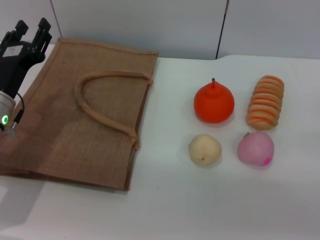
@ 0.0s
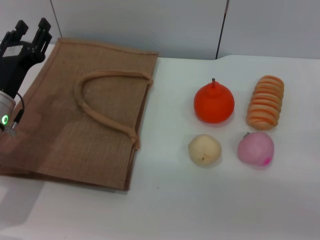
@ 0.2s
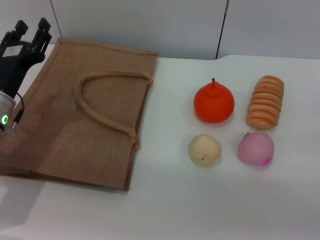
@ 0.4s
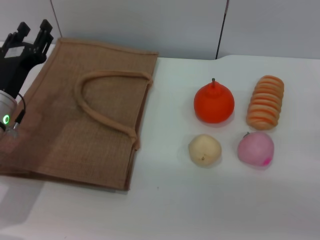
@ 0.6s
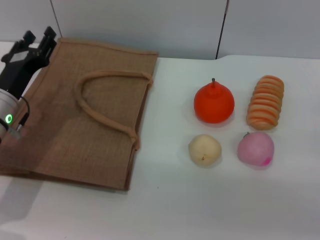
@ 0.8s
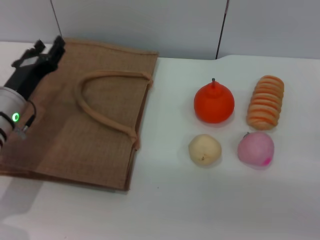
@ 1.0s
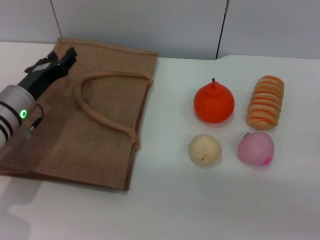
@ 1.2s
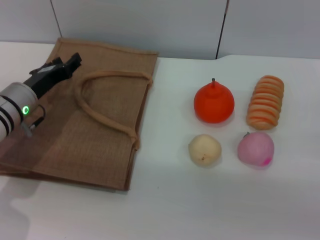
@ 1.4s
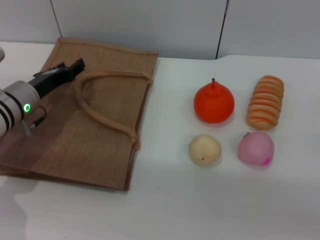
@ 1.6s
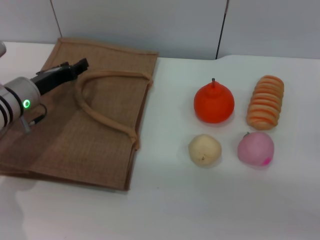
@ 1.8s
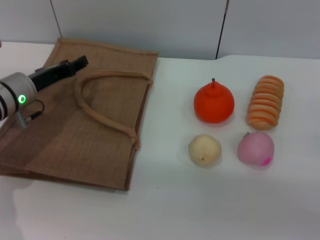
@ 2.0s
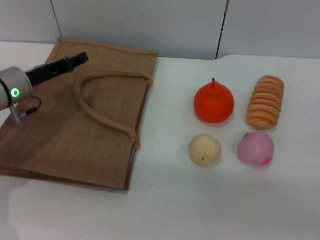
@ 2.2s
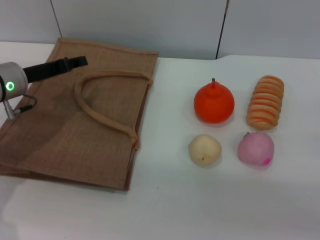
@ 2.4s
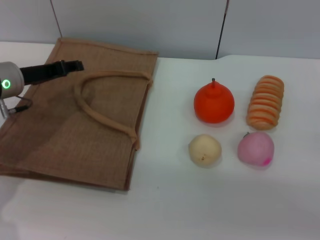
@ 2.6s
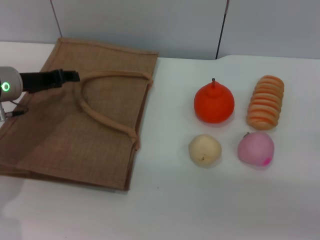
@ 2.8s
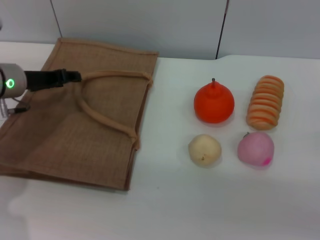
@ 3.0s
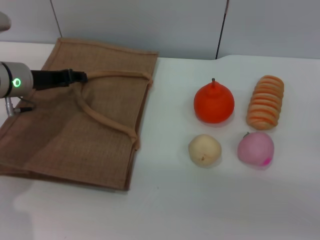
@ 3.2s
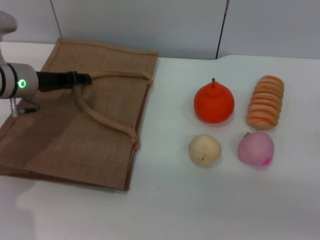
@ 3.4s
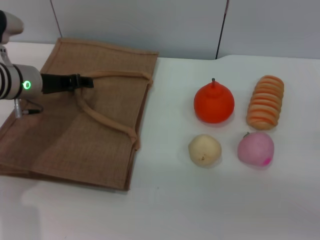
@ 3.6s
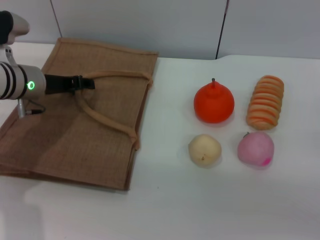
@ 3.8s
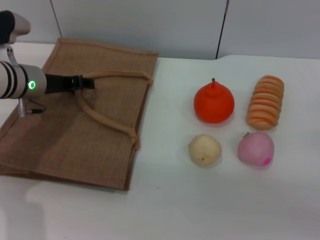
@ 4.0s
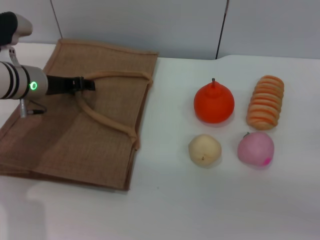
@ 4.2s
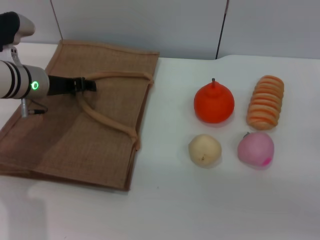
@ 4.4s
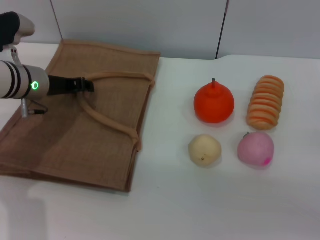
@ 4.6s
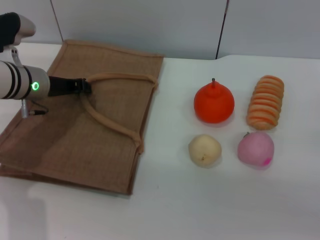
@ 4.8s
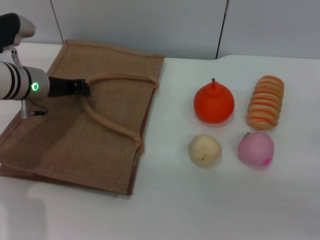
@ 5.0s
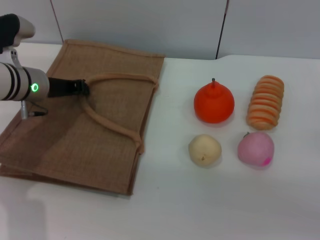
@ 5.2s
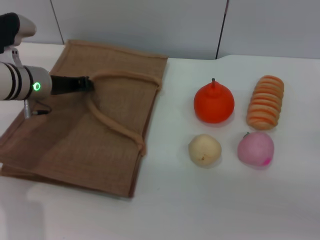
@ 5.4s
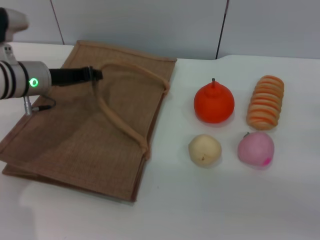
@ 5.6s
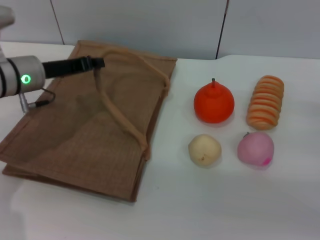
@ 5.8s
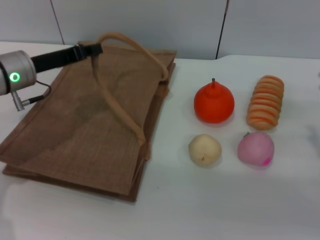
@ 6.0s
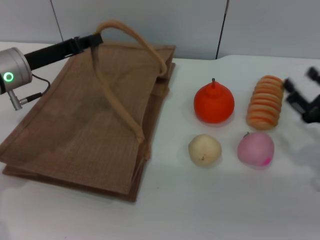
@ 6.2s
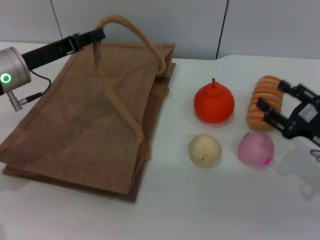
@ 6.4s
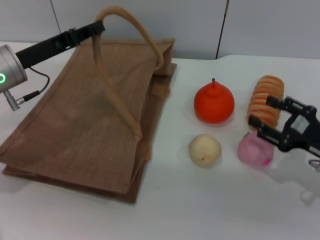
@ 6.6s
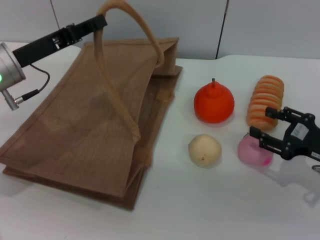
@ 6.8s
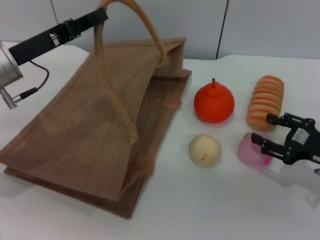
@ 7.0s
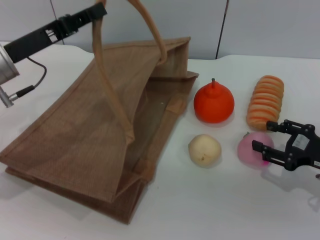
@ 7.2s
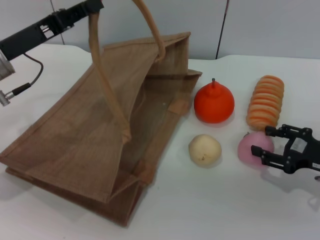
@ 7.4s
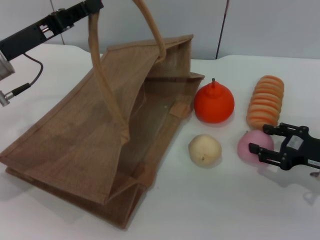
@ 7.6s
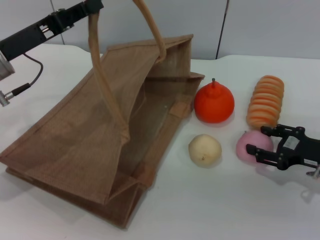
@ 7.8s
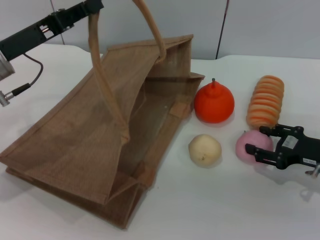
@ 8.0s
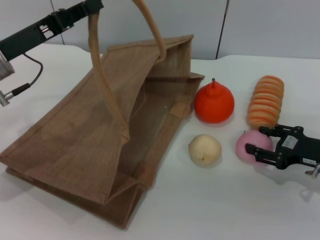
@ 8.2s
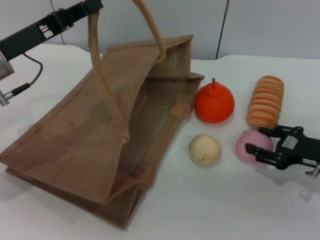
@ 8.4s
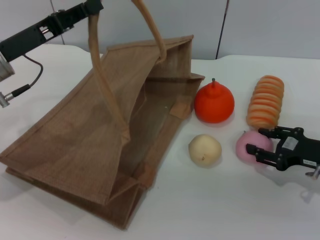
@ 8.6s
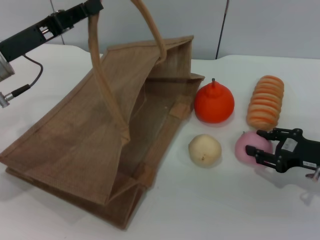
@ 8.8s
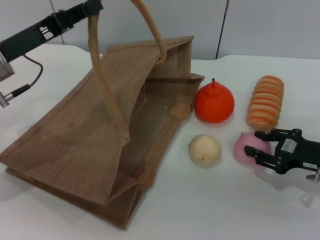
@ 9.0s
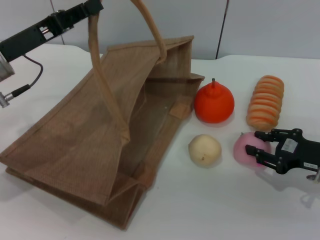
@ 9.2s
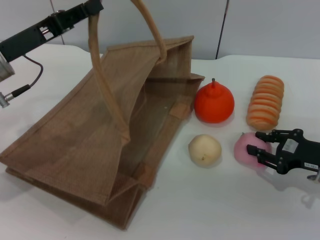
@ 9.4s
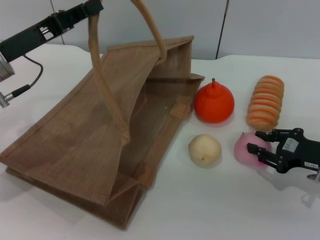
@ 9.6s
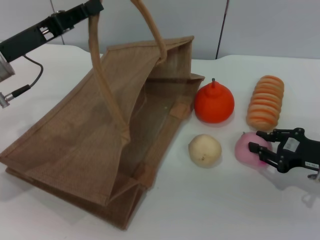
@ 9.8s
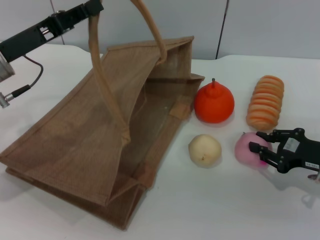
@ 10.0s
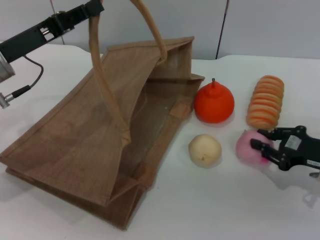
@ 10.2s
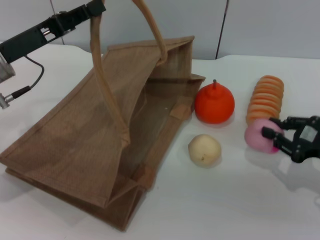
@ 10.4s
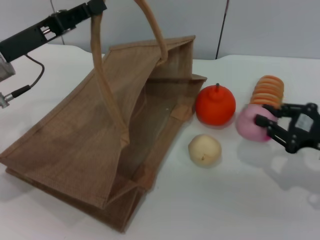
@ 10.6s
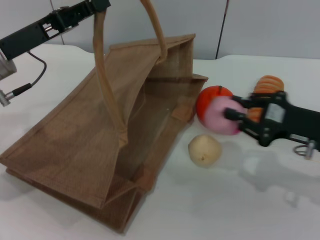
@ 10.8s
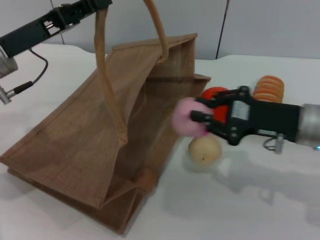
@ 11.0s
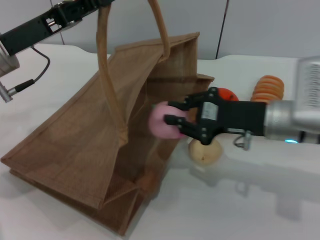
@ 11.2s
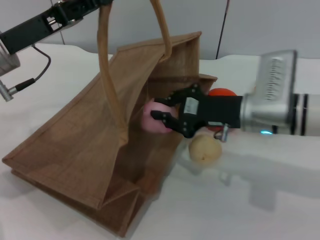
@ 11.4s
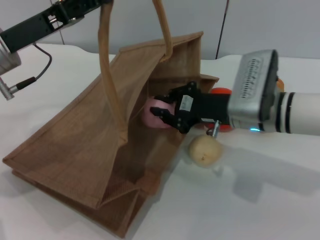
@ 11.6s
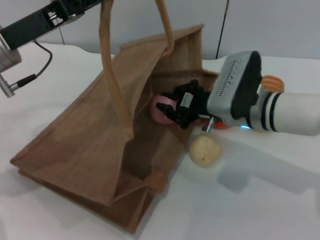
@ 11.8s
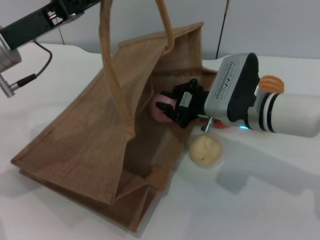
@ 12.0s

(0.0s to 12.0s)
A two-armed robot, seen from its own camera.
Task of the whole recording: pick up the peach from the table and place it in the brown handbag.
Step, 0.0s - 5.8s: Lift the woven bag with the left gripper to open it.
Step, 6.0s - 10.6s: Pick up the peach with the right gripper.
0.0s - 1.6s: The left gripper heads forward, covering some 5 cm.
1.6s - 3.0s: The left gripper moves upward, about 5 cm.
3.0s - 4.4s: The grippers stay close to where they were, moving slightly.
4.4s - 6.0s: The left gripper closes.
6.0s - 7.6s: The left gripper changes place by roughly 5 cm.
7.6s - 9.0s: Both grippers stay about where they are.
9.0s - 10.4s: The right gripper closes its fingers.
10.4s - 12.0s: The right gripper is displaced to the left and forward by about 20 cm.

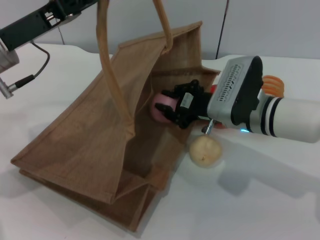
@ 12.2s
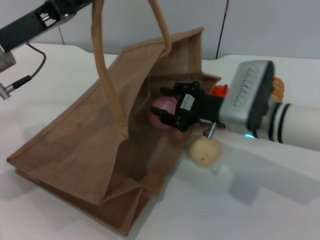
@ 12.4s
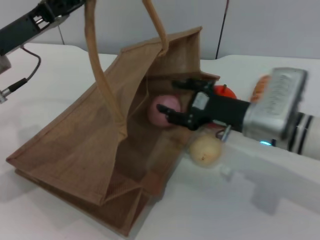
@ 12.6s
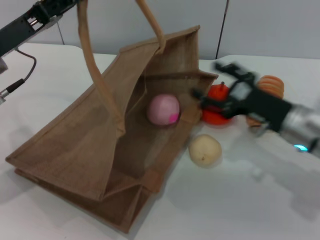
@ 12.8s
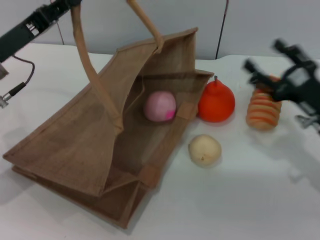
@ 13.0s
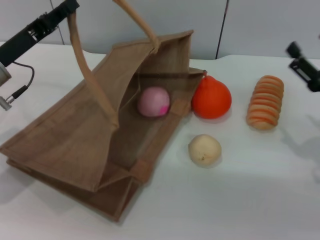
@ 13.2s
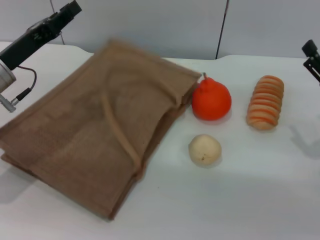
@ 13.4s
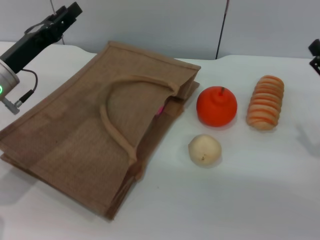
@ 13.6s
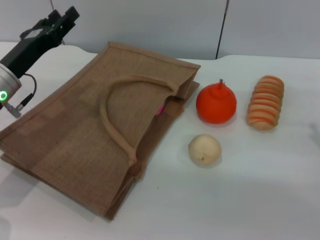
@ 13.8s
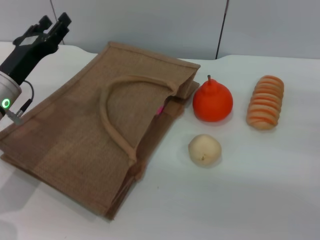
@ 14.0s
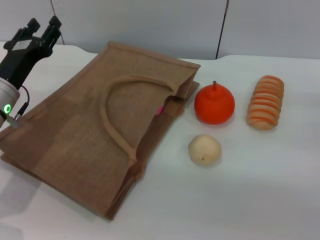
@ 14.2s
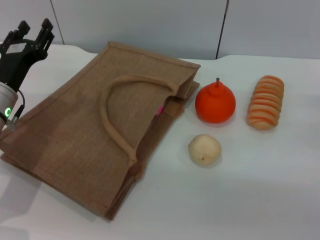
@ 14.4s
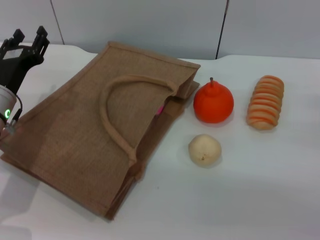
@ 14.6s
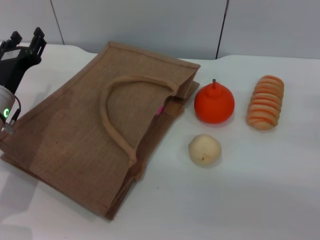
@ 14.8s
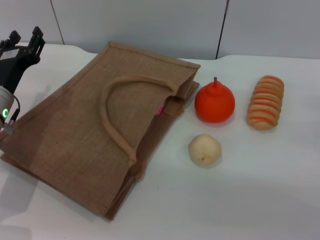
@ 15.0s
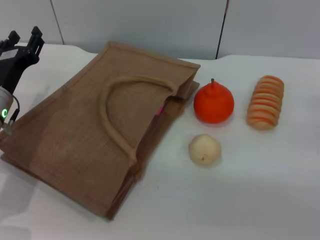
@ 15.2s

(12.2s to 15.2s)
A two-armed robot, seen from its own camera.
Task of the whole recording: pick up the peach from the table and place it in the brown handbag.
Step, 13.0s - 14.0s: Lower the woven bag with the left gripper to close it.
12.2s - 13.8s: The right gripper heads to the right and backward, covering roughly 20 cm, and opens up, while the left gripper shifts some 5 cm downward, and opens.

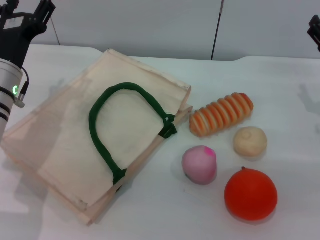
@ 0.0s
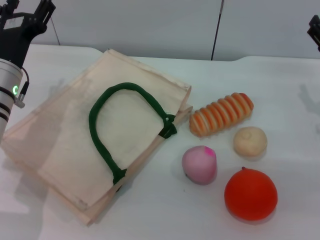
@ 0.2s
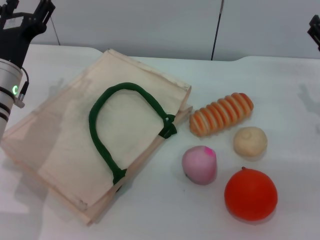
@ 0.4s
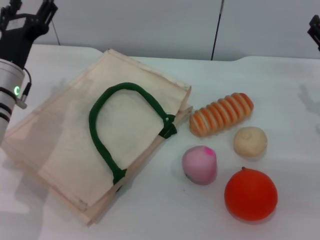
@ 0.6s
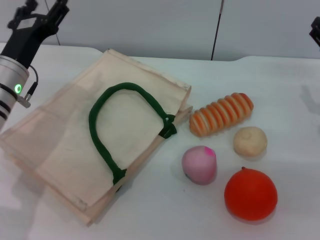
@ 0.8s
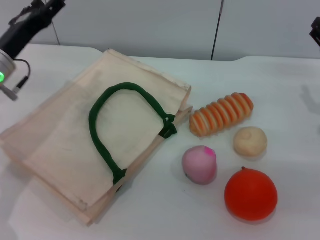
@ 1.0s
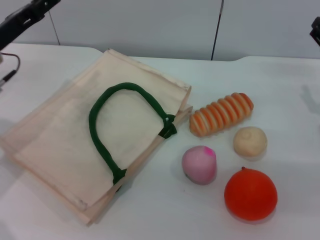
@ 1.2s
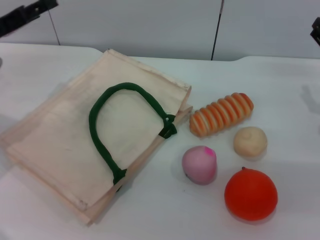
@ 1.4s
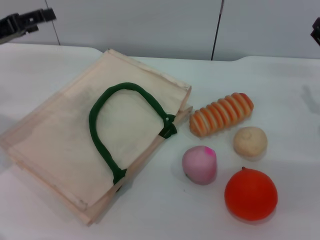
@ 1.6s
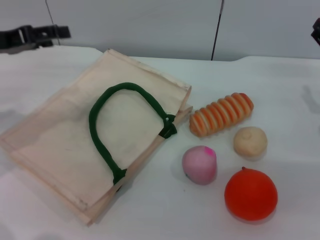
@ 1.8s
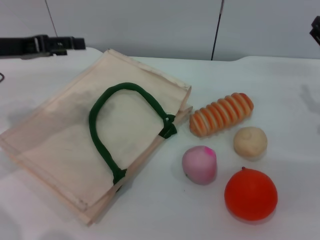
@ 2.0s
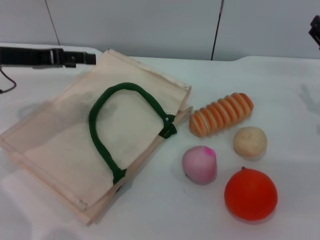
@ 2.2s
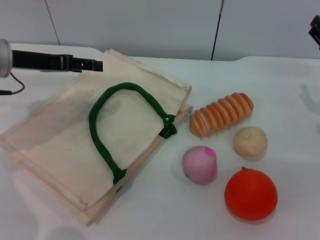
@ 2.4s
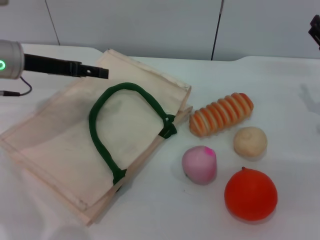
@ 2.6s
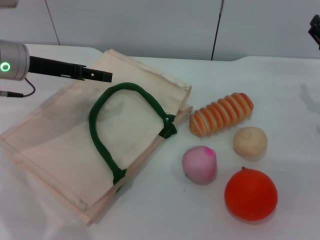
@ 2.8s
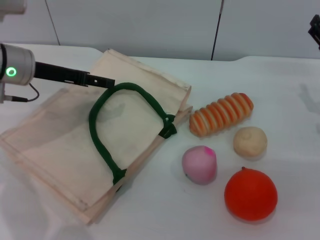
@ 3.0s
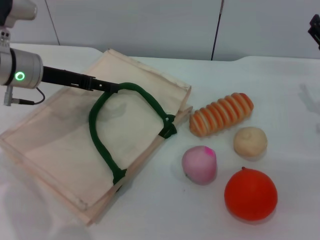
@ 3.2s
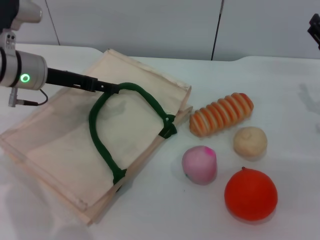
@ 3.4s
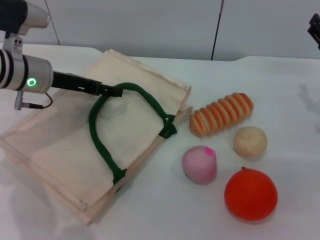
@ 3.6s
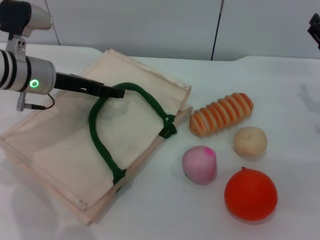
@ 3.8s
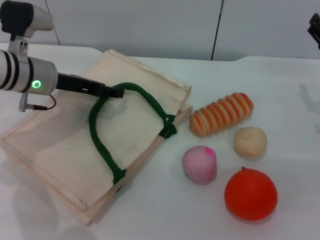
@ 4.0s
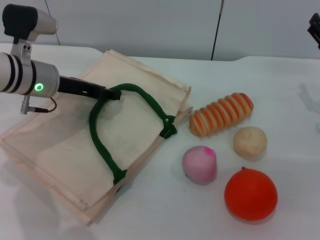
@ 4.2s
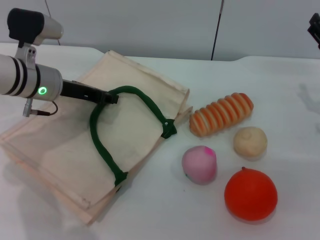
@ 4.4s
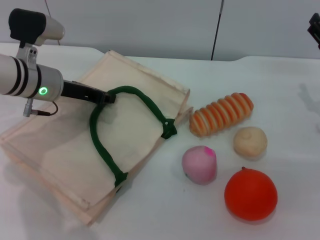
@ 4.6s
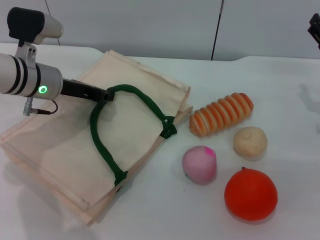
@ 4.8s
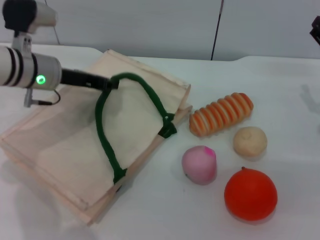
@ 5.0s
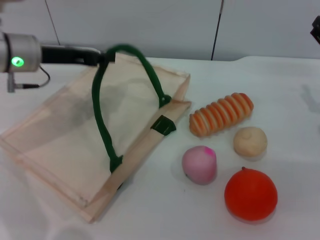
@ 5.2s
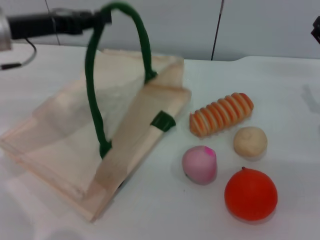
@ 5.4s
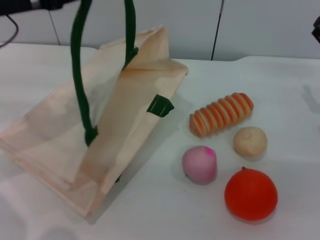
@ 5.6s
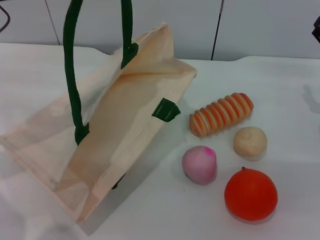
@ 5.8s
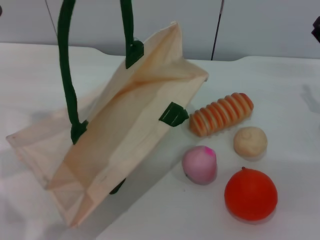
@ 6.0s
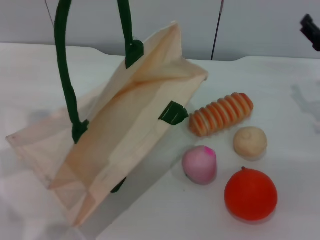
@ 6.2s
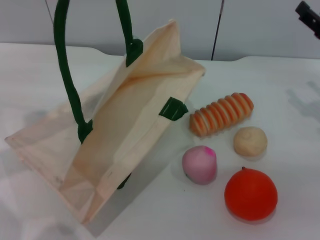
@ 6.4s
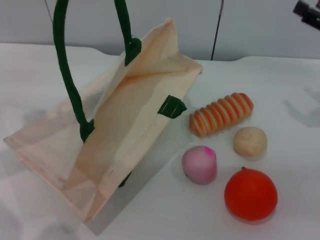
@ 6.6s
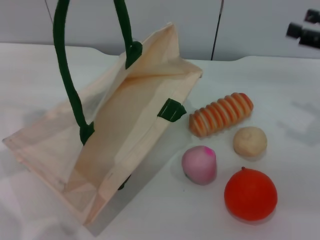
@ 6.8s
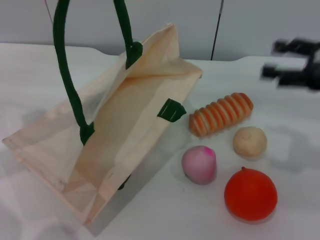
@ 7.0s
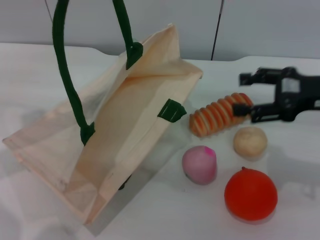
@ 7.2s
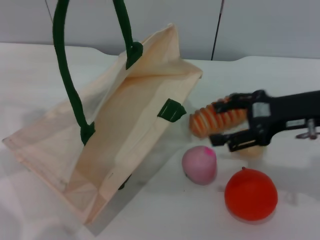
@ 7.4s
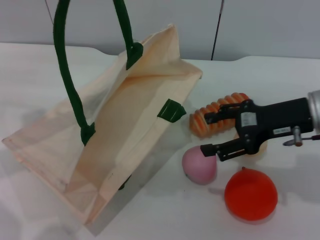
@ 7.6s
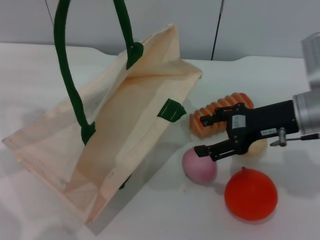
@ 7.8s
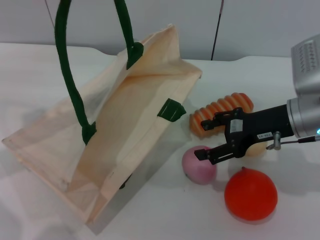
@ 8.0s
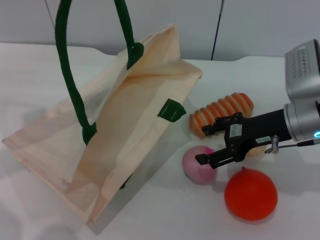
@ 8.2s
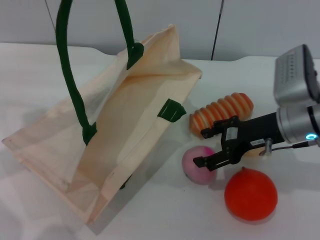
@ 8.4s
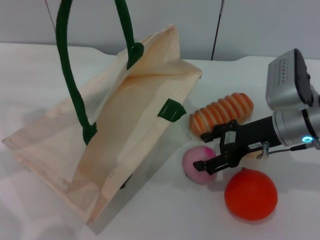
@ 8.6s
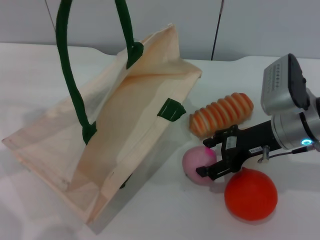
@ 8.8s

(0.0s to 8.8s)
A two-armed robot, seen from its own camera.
Task of the whole recording: pick up the peach from the table and place it in the white handbag.
Step, 0.0s - 5.4s: Lift the woven bag with the left gripper to open it.
0.0s - 1.4s: The left gripper heads to the left and upward, covering some 10 cm.
1.4s - 3.0s: The left gripper travels to the right by approximately 5 cm.
3.0s - 4.4s: The left gripper shifts by about 5 cm, and closes its fingers.
4.4s - 5.8s: The left gripper is displaced upward and to the left by approximately 15 cm, and closes up.
5.8s - 7.4s: The right gripper moves upward and to the left, about 10 cm.
7.4s - 8.8s: The right gripper goes about 5 cm downward.
